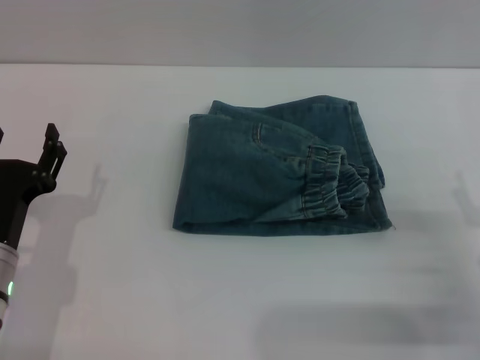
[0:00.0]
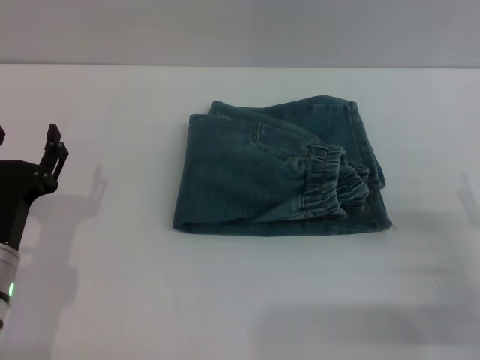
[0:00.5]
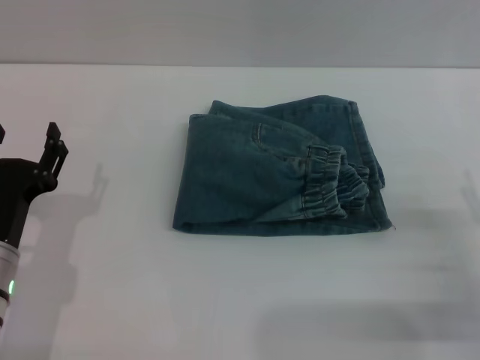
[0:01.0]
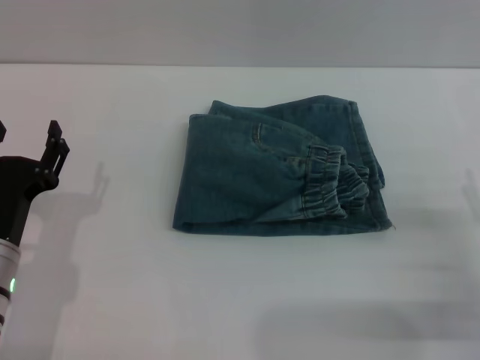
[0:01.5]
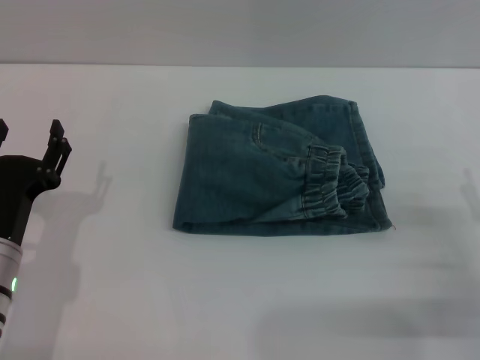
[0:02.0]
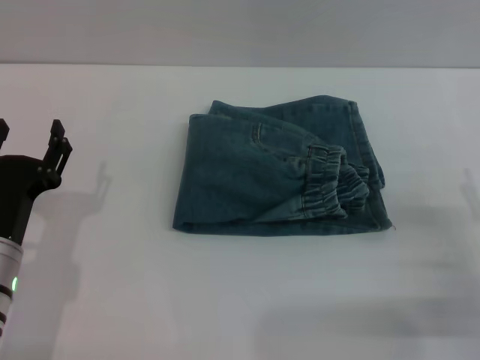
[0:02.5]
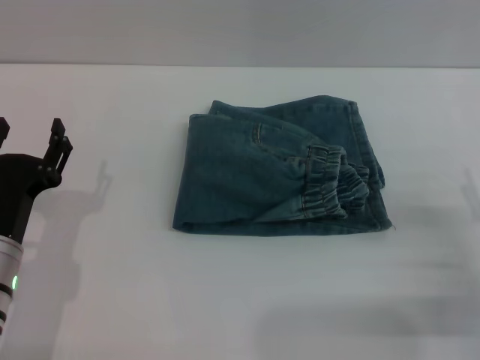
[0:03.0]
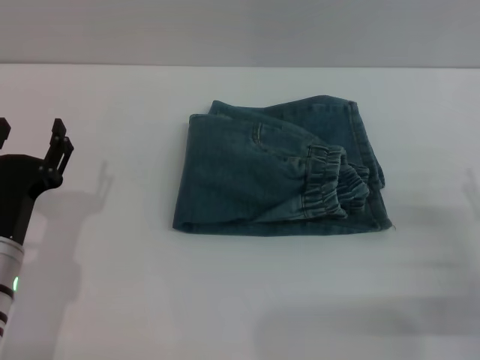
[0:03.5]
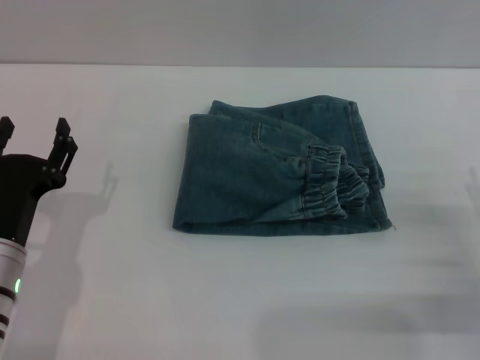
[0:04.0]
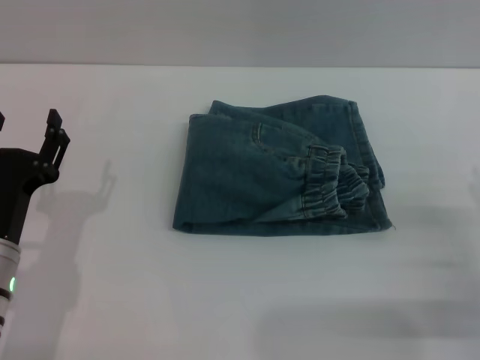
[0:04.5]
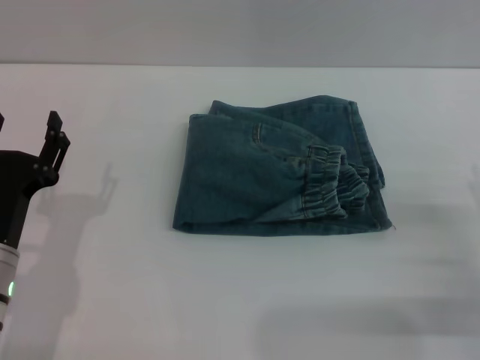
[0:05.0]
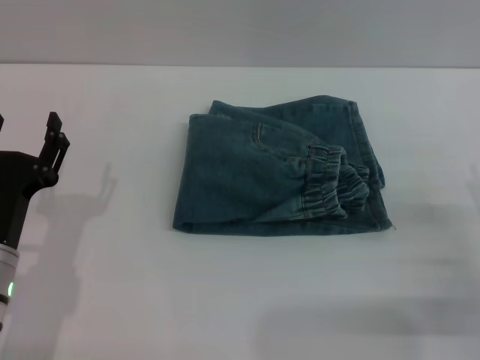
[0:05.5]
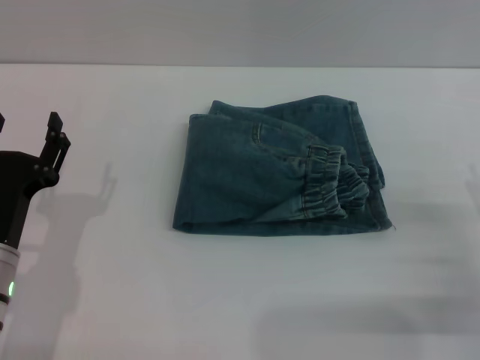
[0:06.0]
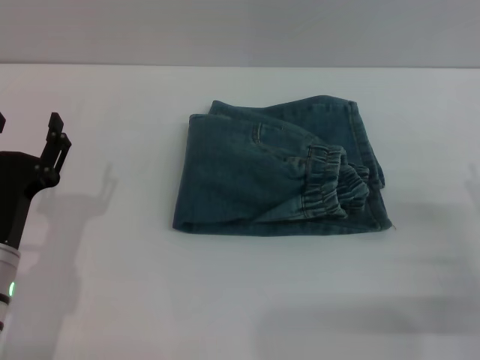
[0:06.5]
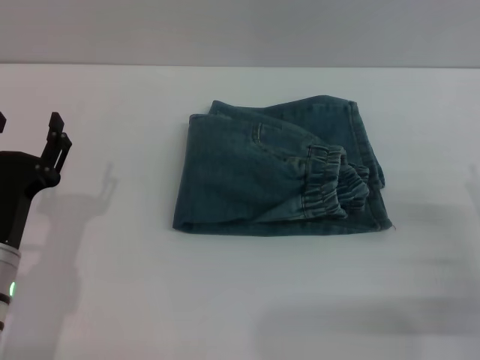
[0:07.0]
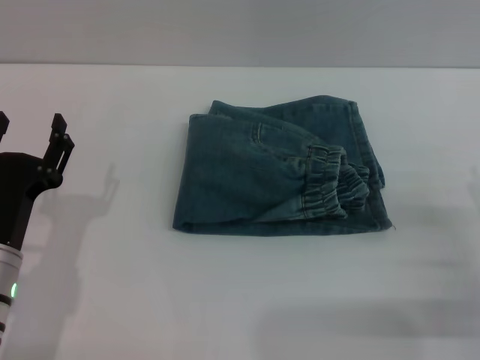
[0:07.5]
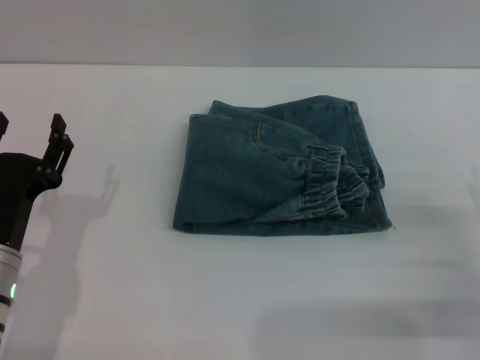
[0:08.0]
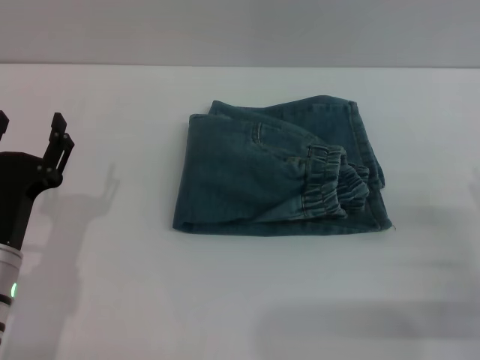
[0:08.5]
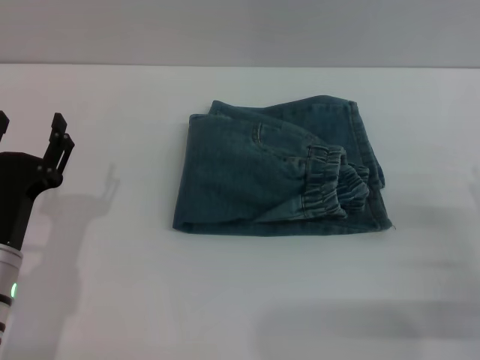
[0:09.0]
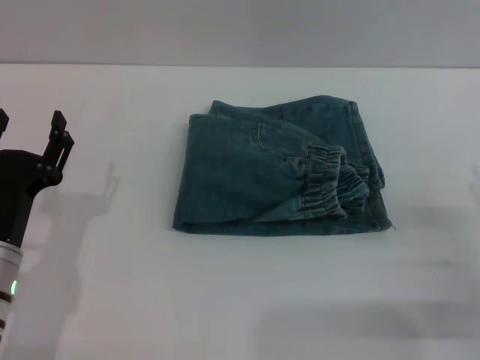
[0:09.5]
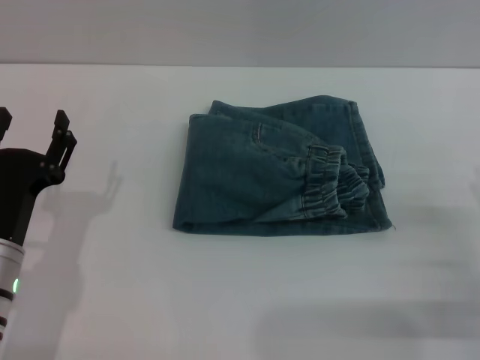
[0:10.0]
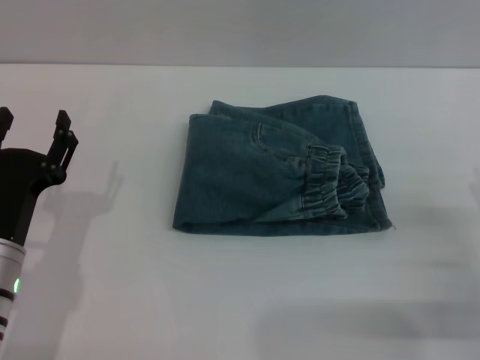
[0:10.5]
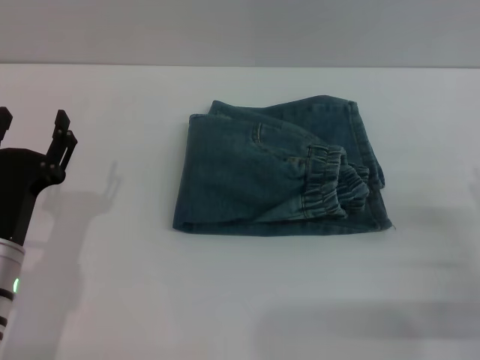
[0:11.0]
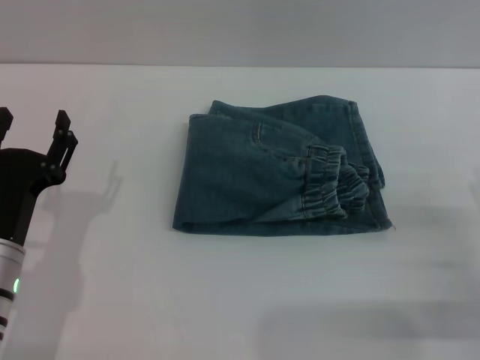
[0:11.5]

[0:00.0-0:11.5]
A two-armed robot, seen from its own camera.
0:00.0 to 0:02.0: Neither gripper changes place.
0:02.0 to 0:04.0: Both grippers stay put.
0:04.0 to 0:11.5: Both grippers stay about where they are.

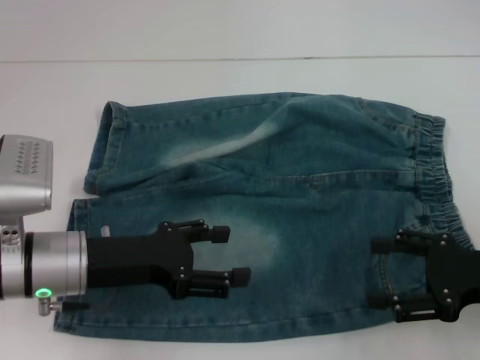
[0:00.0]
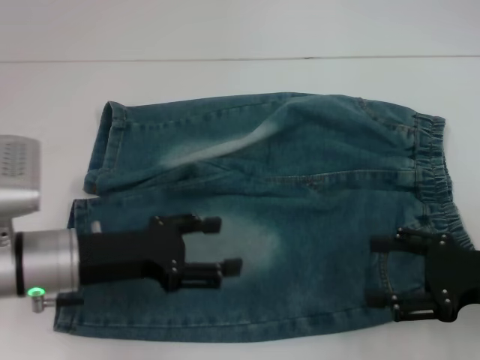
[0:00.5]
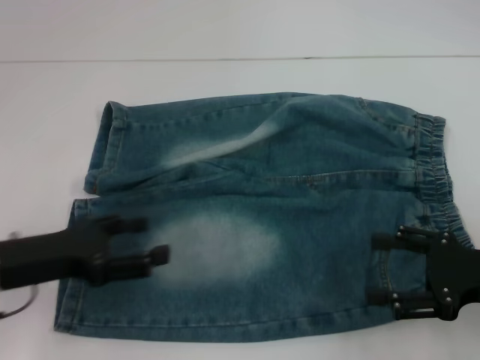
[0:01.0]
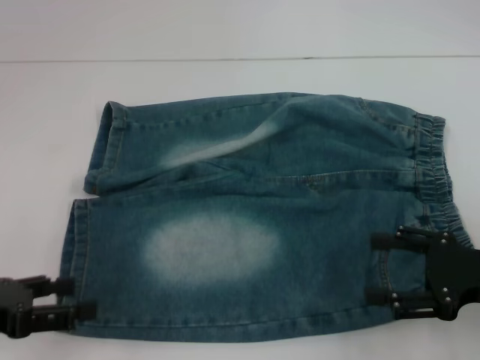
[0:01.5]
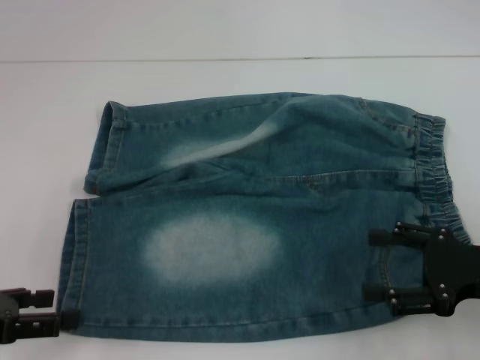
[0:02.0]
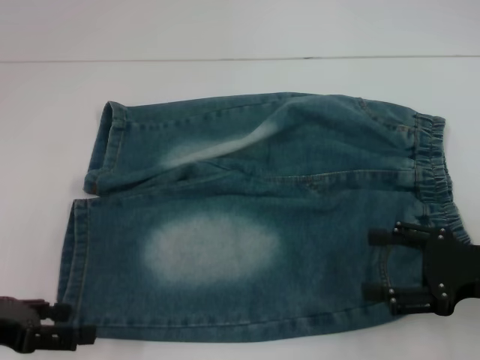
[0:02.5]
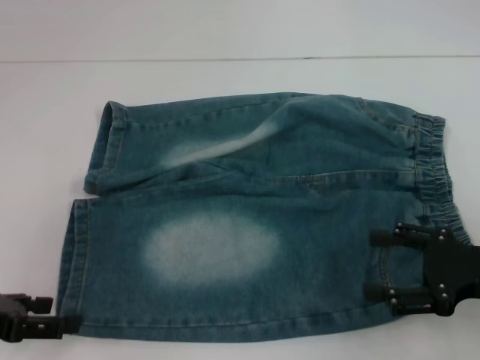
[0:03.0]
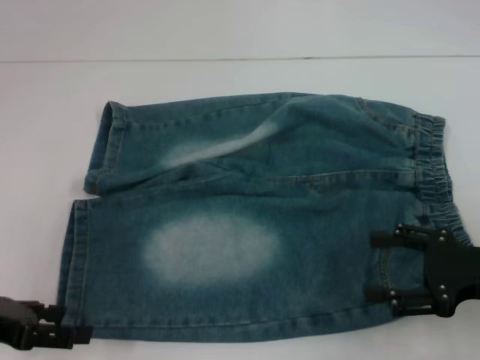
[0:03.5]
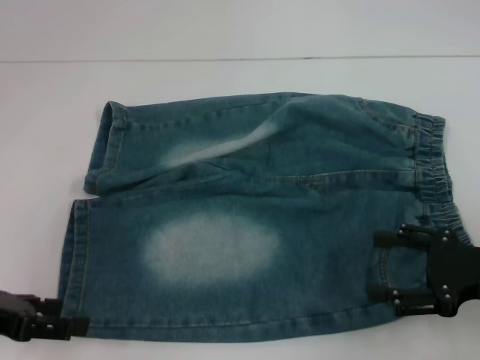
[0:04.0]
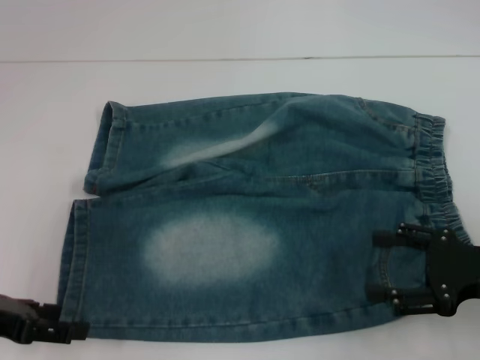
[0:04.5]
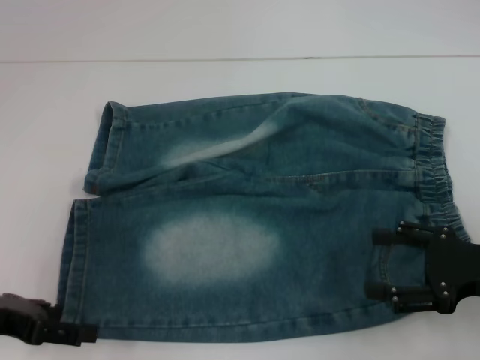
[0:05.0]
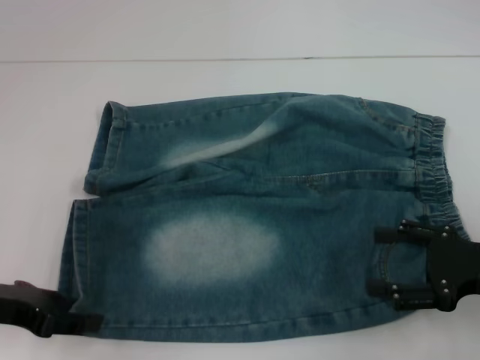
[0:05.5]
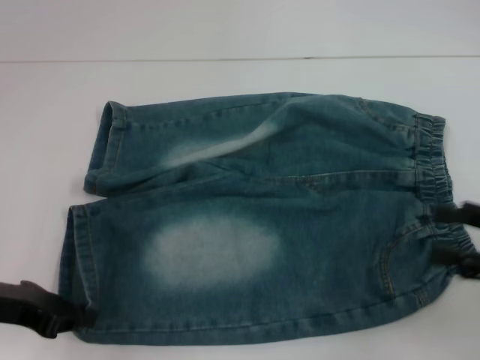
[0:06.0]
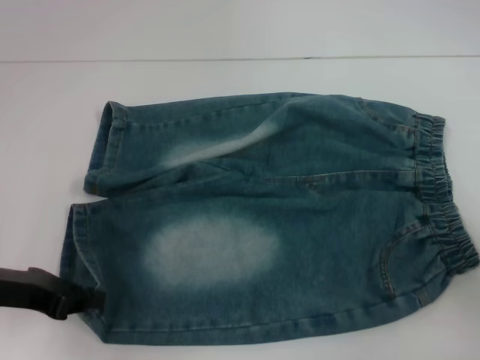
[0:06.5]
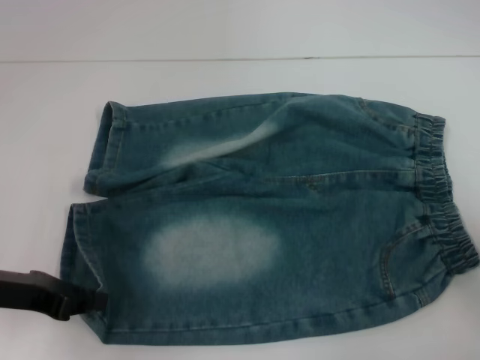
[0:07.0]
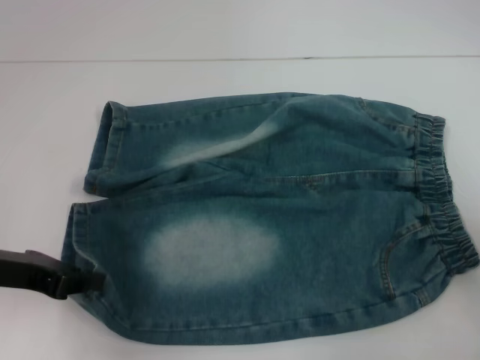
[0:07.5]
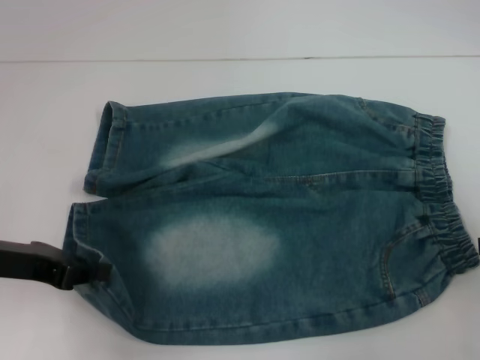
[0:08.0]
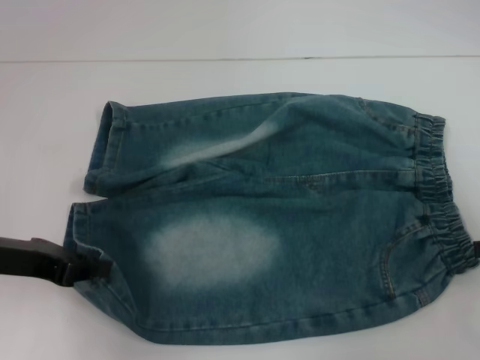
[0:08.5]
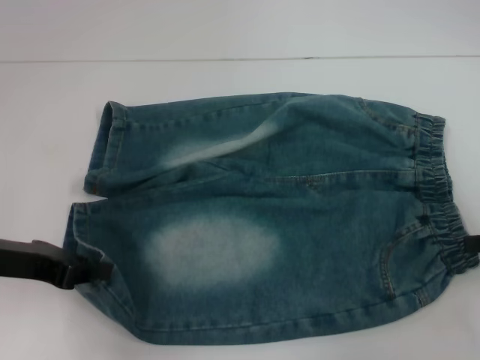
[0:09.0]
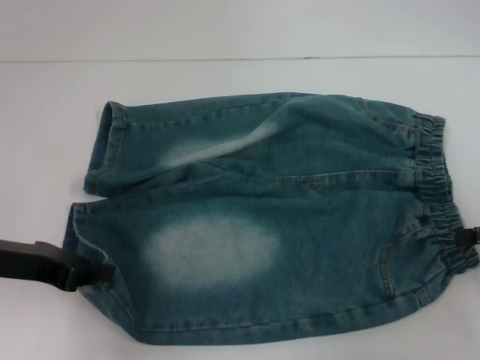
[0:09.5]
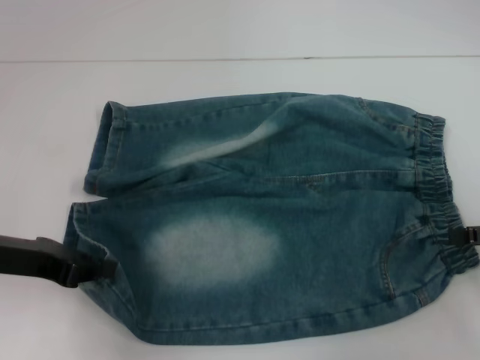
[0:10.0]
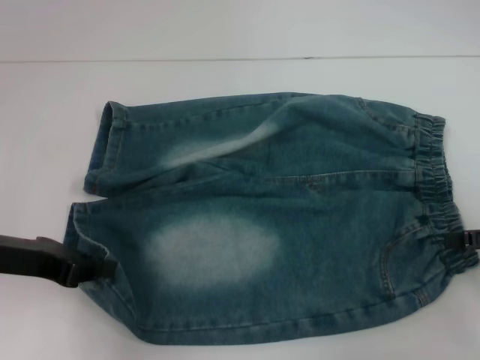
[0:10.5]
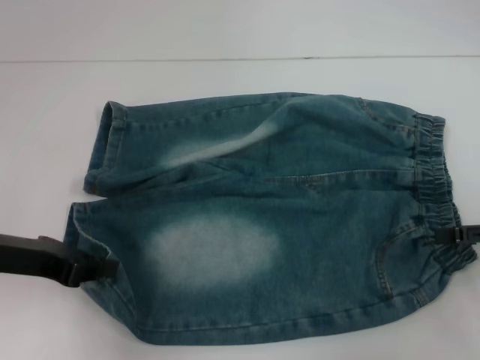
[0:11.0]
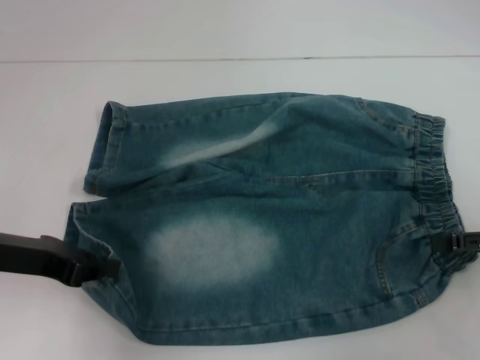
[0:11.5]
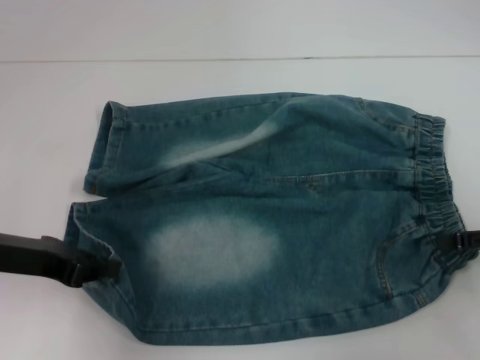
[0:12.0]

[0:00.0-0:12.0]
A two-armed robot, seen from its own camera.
Step, 0:00.0 to 0:06.5: Grab the lower left pant leg with your left hand.
0:00.0 to 0:02.0: The left gripper shifts approximately 15 cm to the left and backward.
0:02.0 to 0:04.0: The grippers move only a little.
0:04.0 to 0:06.0: The right gripper changes place by some 5 cm. Meanwhile the left gripper closes.
0:06.0 to 0:08.0: The left gripper closes up, while the right gripper heads to the right, covering approximately 5 cm.
0:08.0 to 0:12.0: The grippers move only a little.

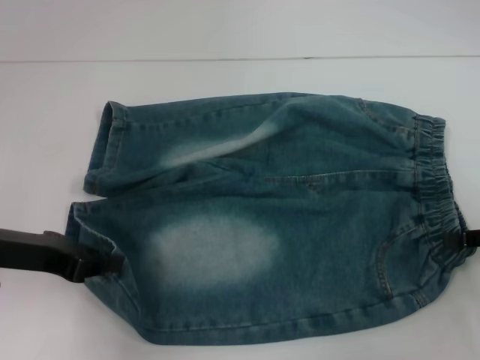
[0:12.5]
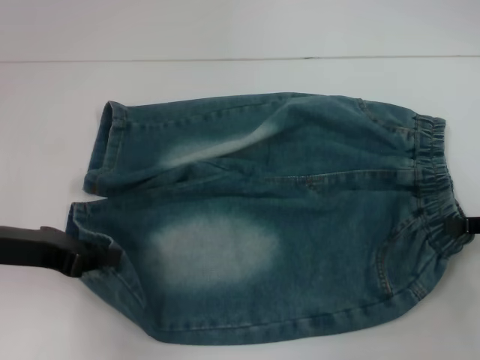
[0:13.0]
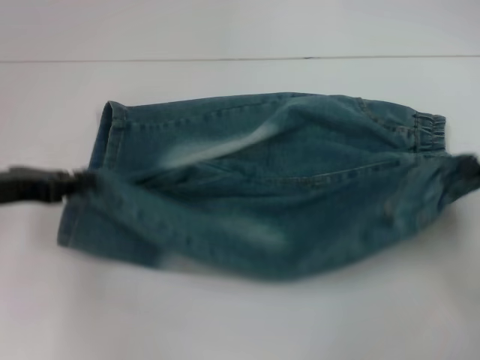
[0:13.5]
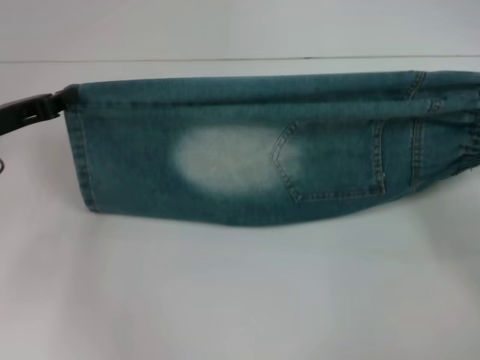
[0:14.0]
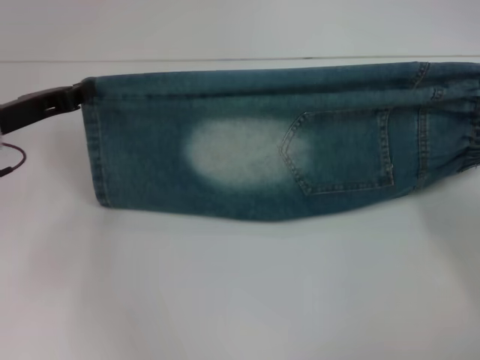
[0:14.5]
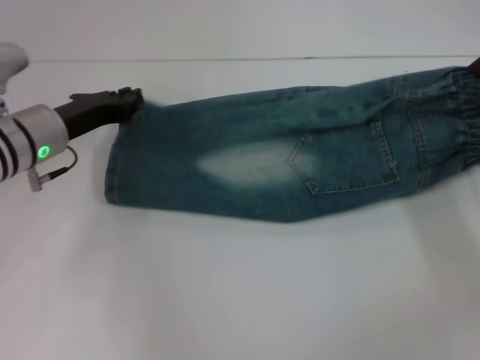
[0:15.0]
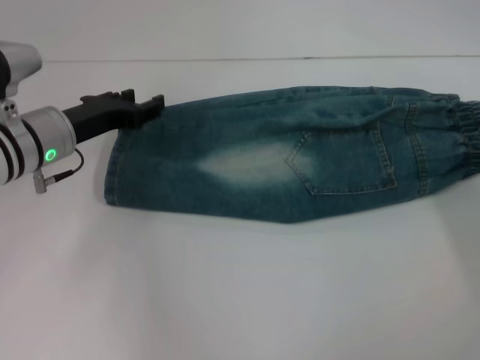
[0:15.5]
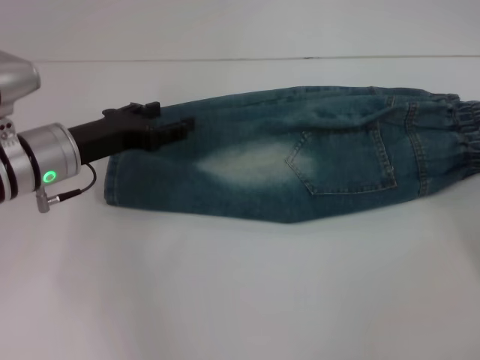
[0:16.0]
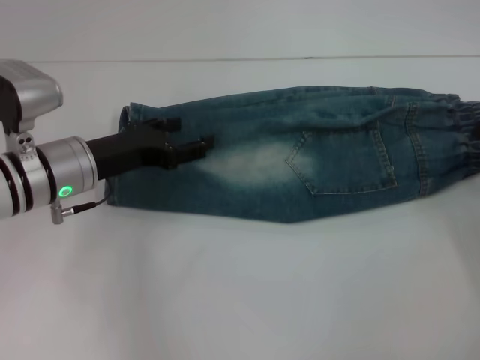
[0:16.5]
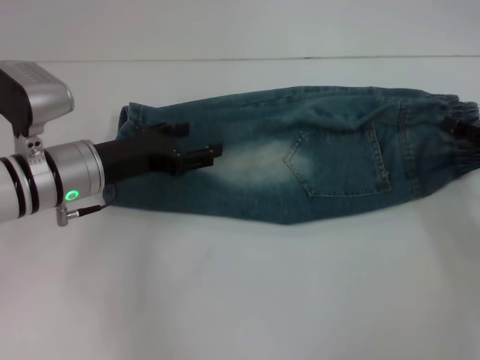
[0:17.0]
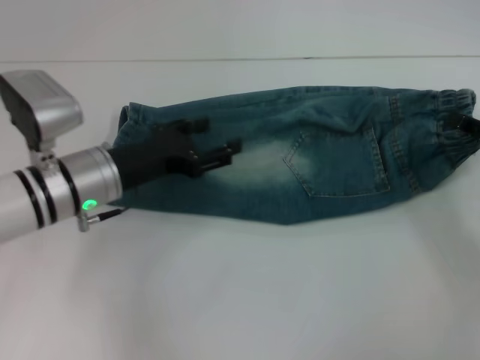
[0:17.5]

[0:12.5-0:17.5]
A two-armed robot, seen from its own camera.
Step, 0:13.5 to 0:15.0: Fold upward with your left hand.
Step, 0:15.5 to 0:17.0: Grab the waistband with your right hand.
0:12.5 to 0:15.0: Both grippers move forward, about 10 cm.
0:15.0 to 0:17.5: The left gripper heads to the right, covering about 5 cm, and opens. Meanwhile the right gripper opens and closes again.
